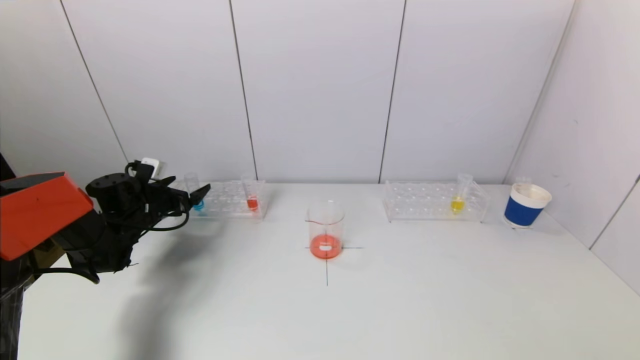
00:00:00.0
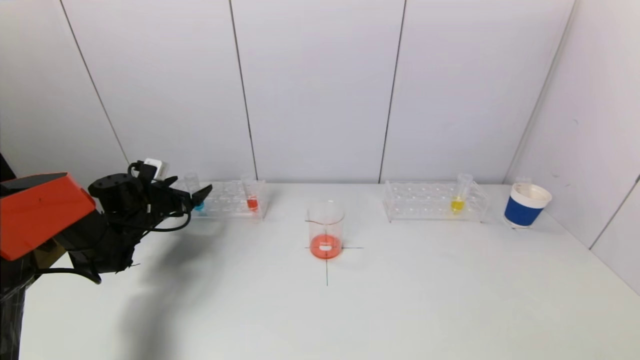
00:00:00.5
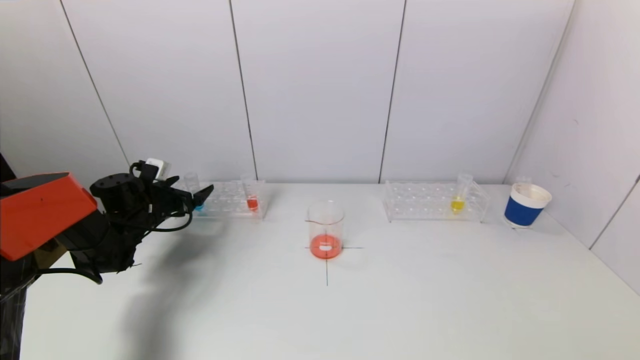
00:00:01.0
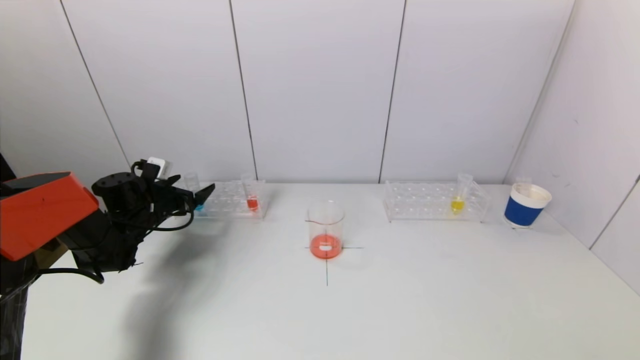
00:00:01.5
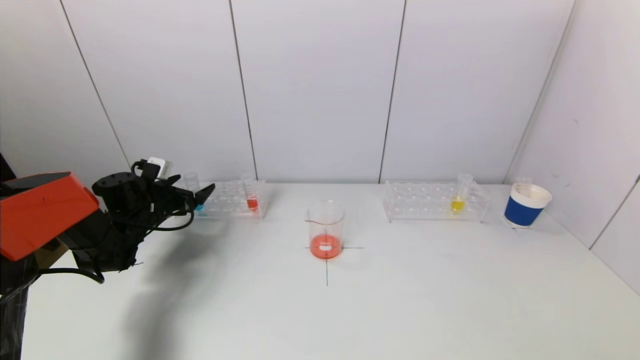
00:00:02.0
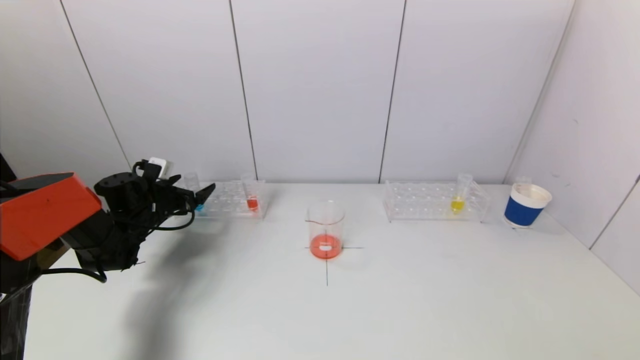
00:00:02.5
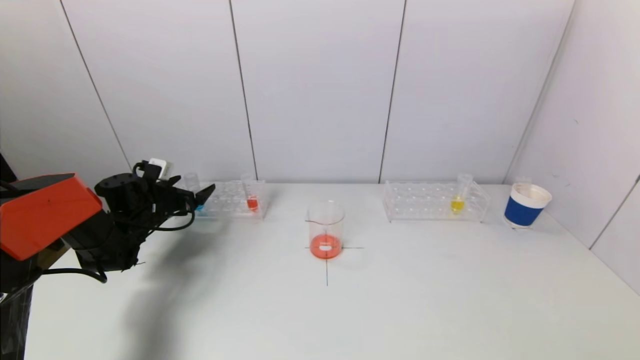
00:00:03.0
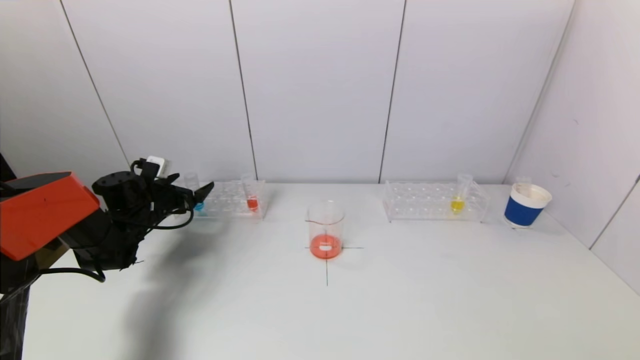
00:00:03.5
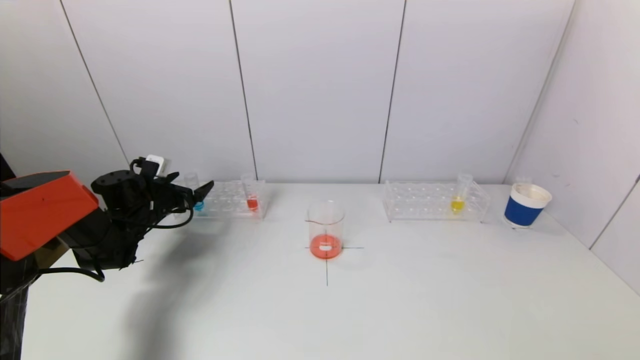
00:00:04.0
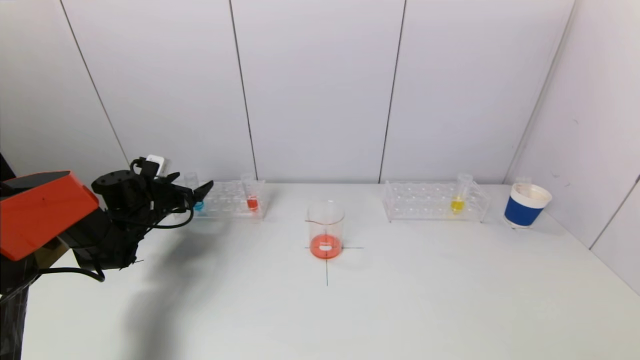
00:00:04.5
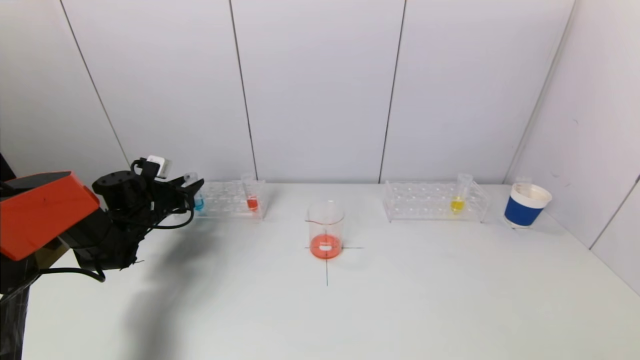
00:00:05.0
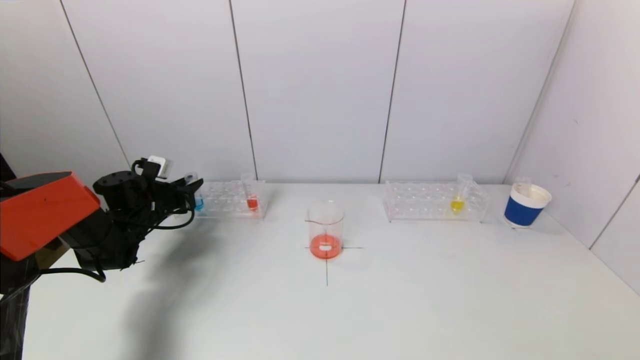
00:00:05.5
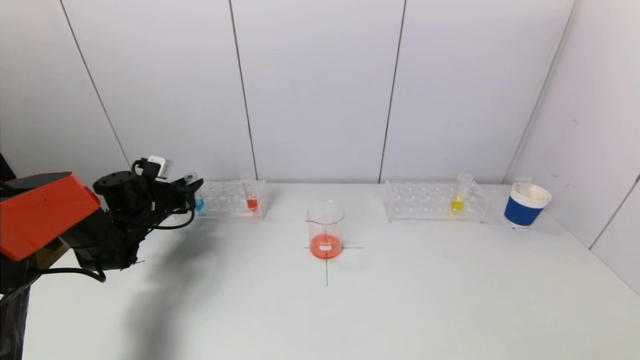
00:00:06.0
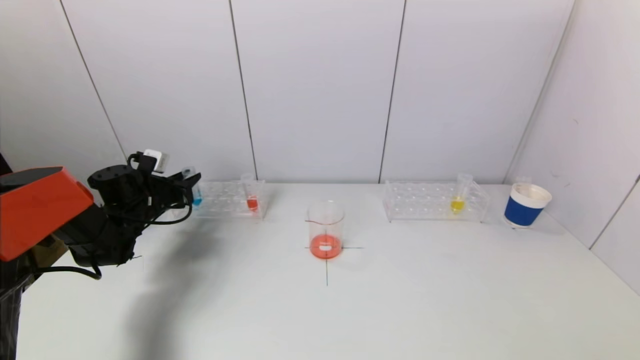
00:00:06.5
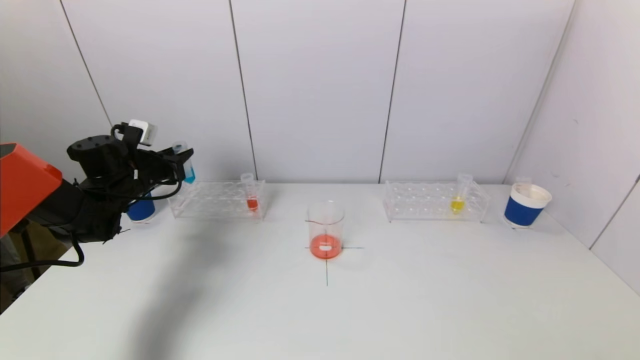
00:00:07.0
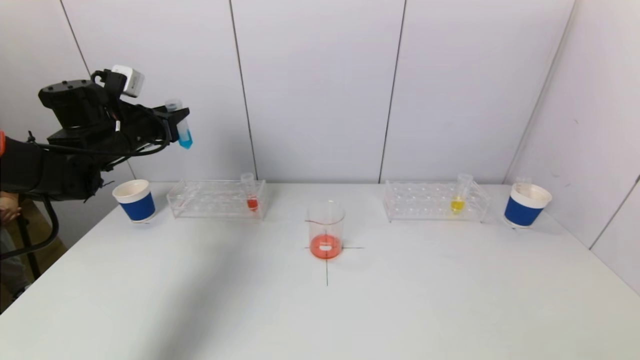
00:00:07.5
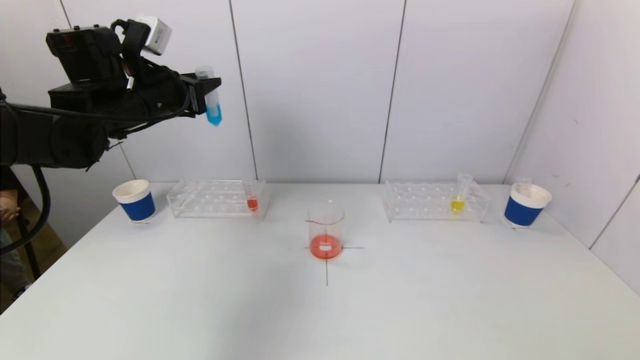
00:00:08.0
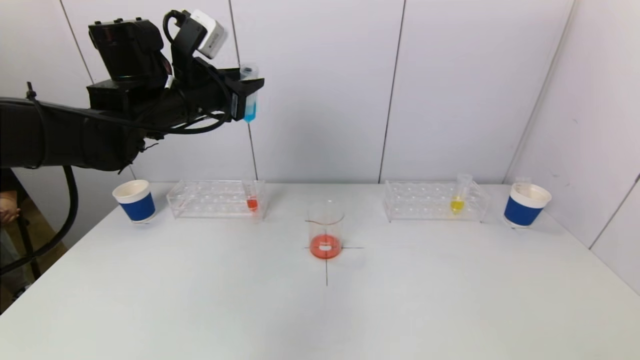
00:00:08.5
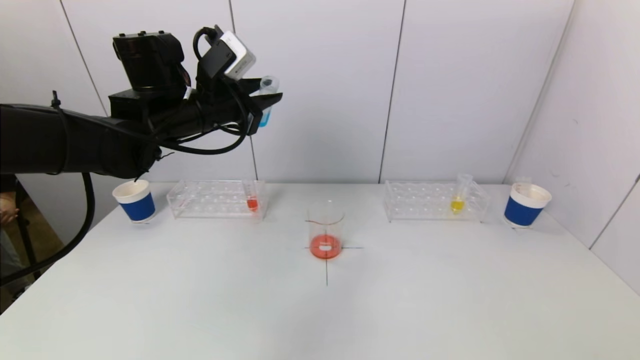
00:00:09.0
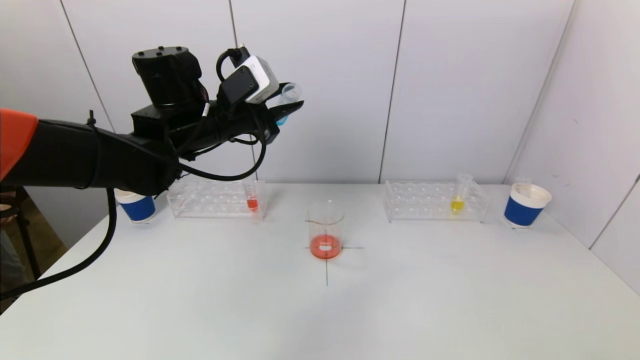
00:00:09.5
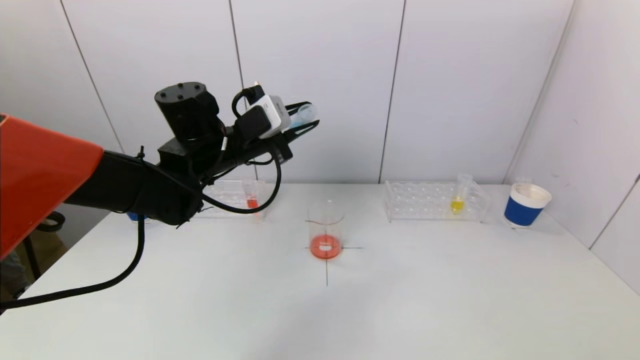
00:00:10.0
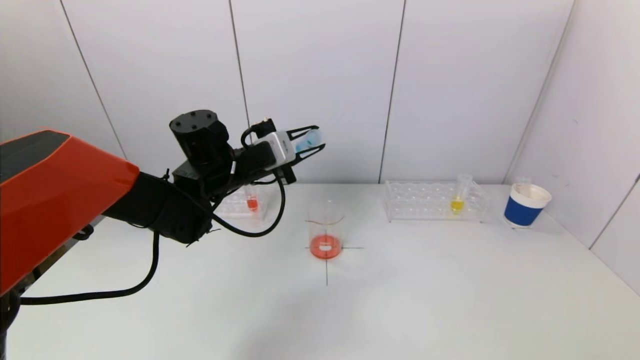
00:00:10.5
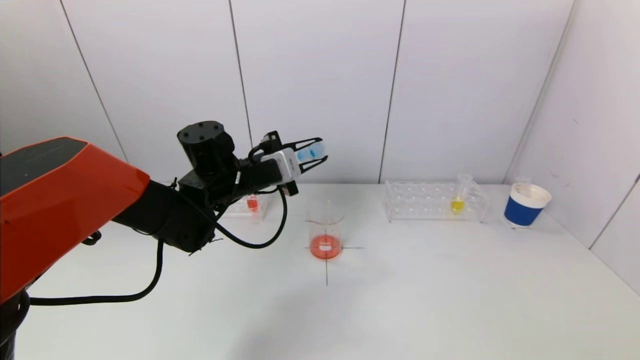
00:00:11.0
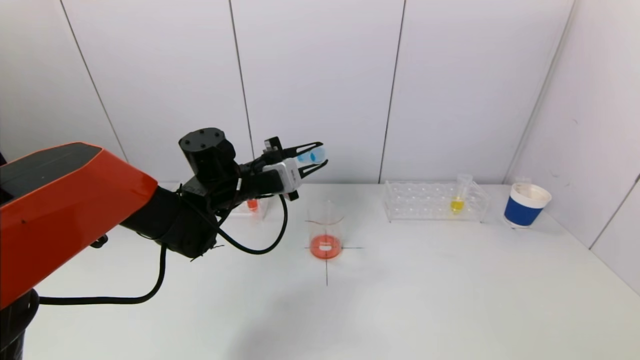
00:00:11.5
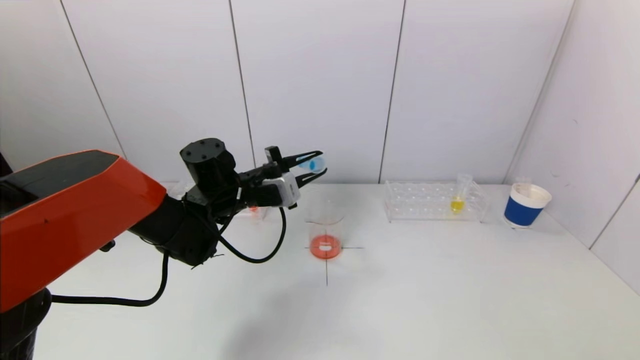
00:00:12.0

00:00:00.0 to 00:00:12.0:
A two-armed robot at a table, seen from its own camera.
Task of the whole recording: pick up a test tube with pigment on left test tube rack and a test tube with pigment on right test tube rack by grippers and pour them into the beaker.
Step, 00:00:00.0 to 00:00:05.0: Grasp the blue reagent with the left gripper.
00:00:00.0 to 00:00:04.0: Both grippers stay put.
00:00:04.0 to 00:00:06.0: The left gripper closes up.
00:00:06.0 to 00:00:08.0: The left gripper travels upward by about 25 cm.
00:00:08.0 to 00:00:10.0: The left gripper is displaced to the right and downward by approximately 15 cm.
00:00:10.0 to 00:00:12.0: The left gripper heads downward, covering approximately 10 cm.

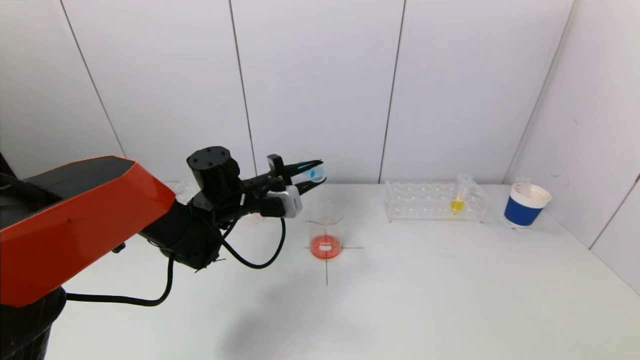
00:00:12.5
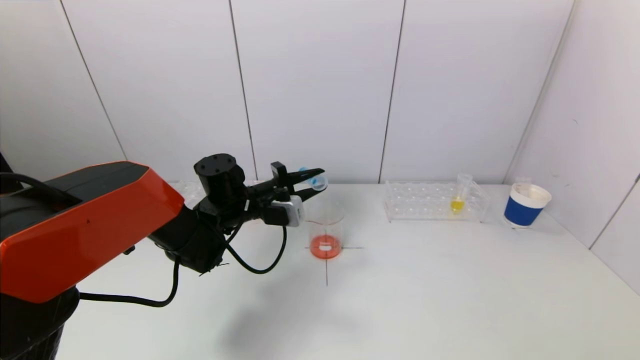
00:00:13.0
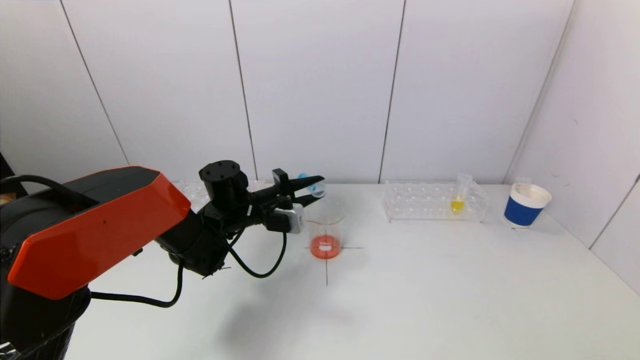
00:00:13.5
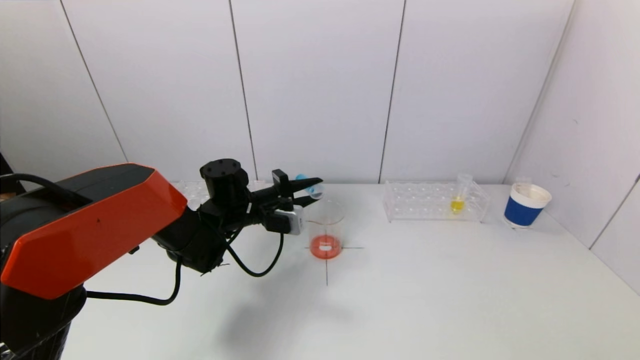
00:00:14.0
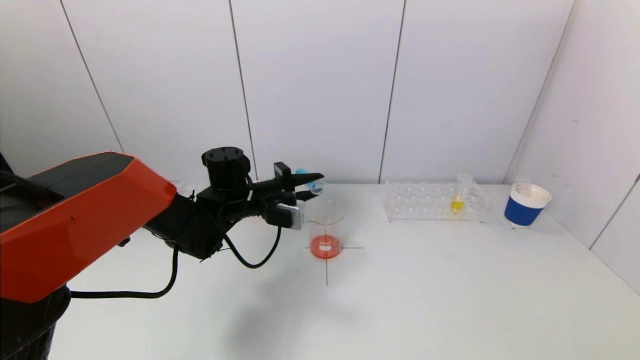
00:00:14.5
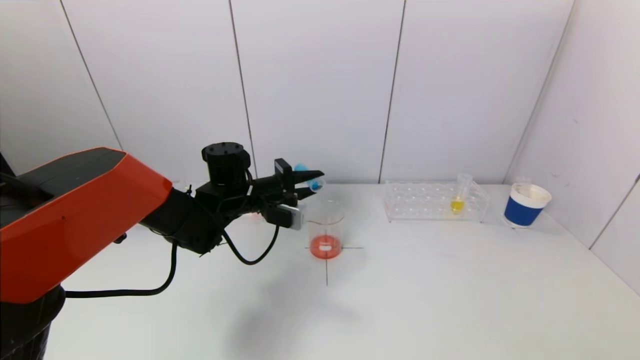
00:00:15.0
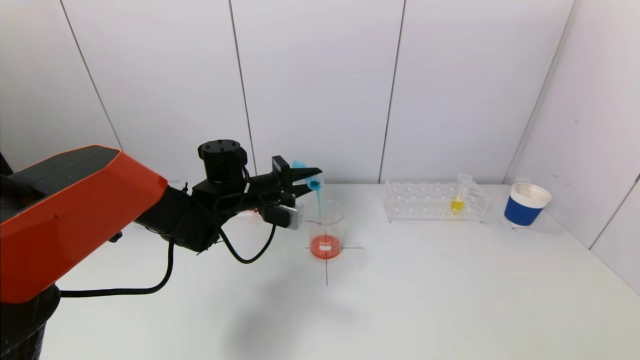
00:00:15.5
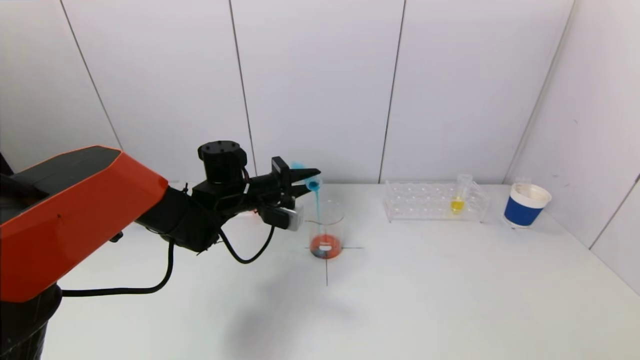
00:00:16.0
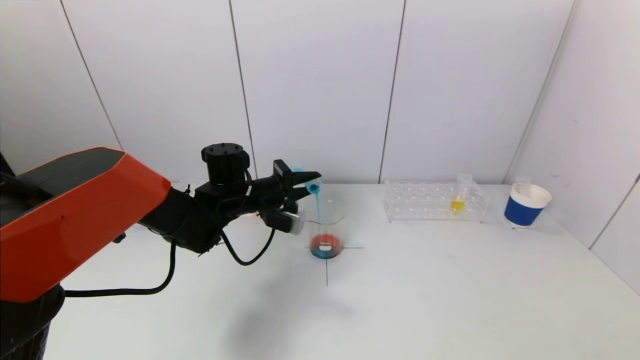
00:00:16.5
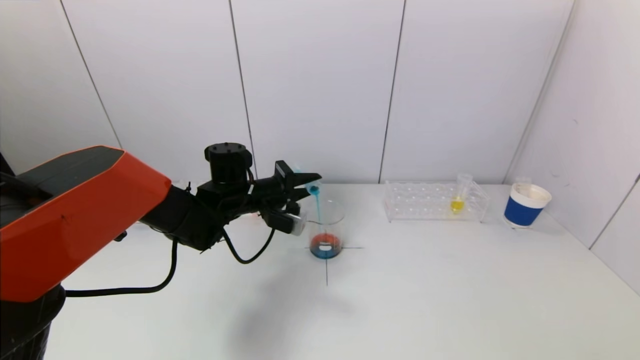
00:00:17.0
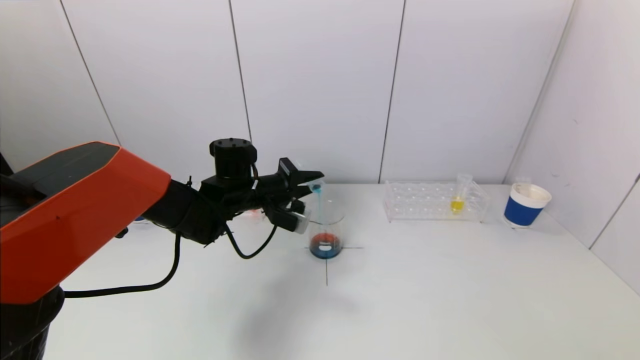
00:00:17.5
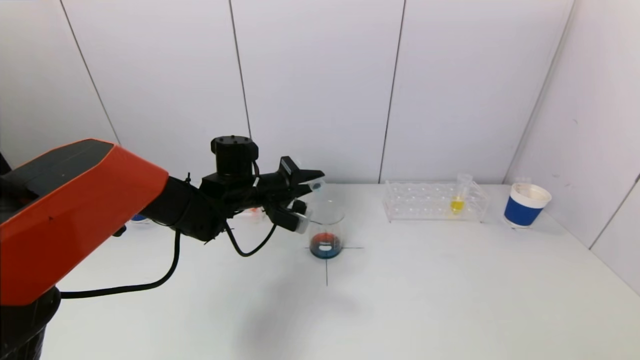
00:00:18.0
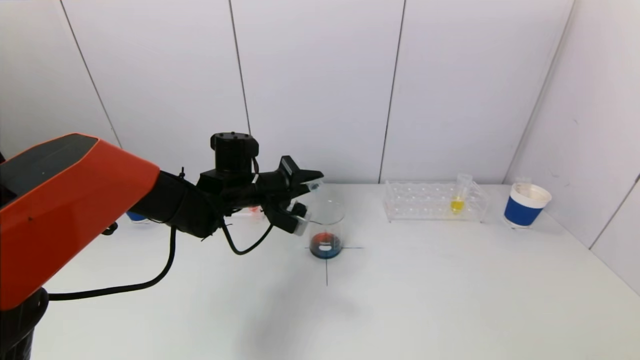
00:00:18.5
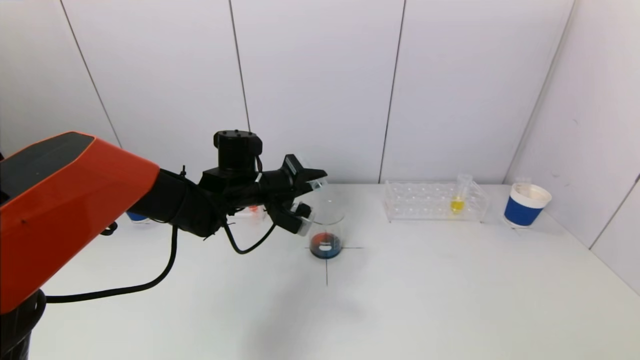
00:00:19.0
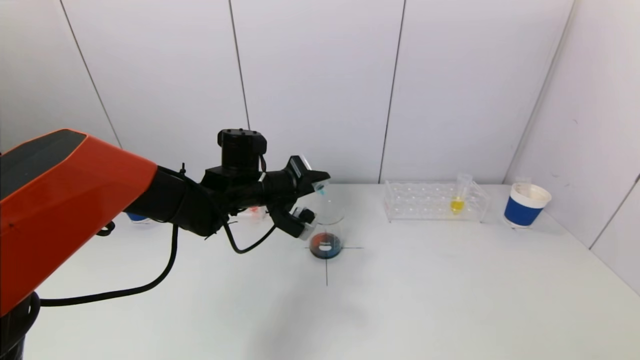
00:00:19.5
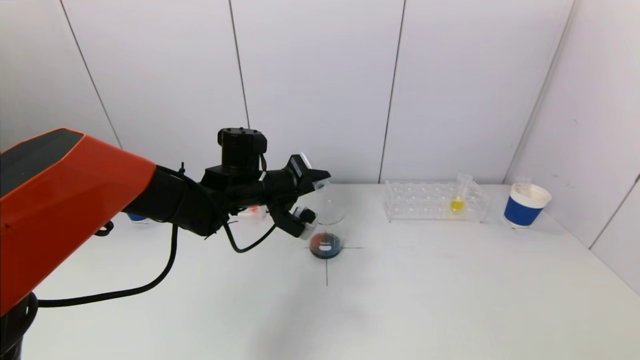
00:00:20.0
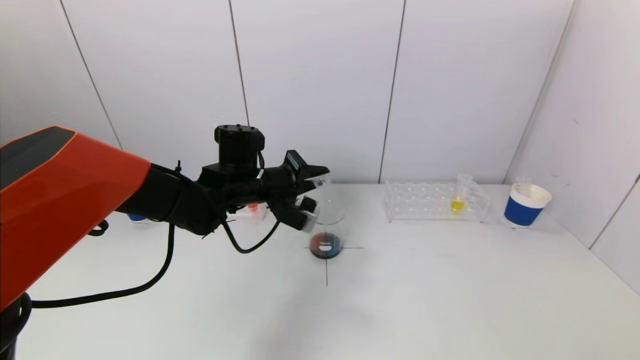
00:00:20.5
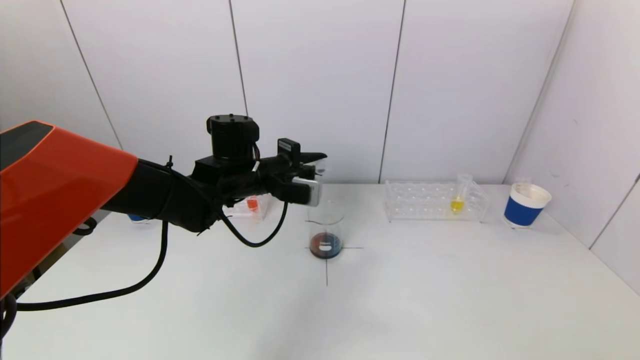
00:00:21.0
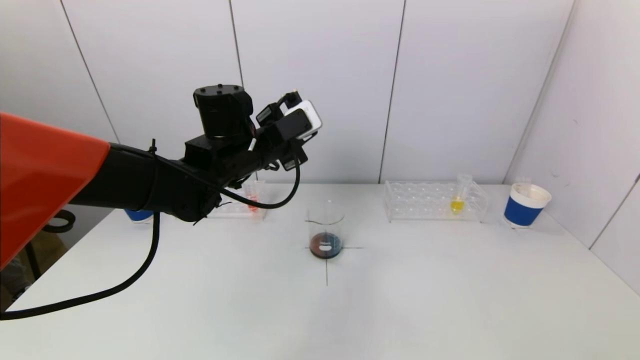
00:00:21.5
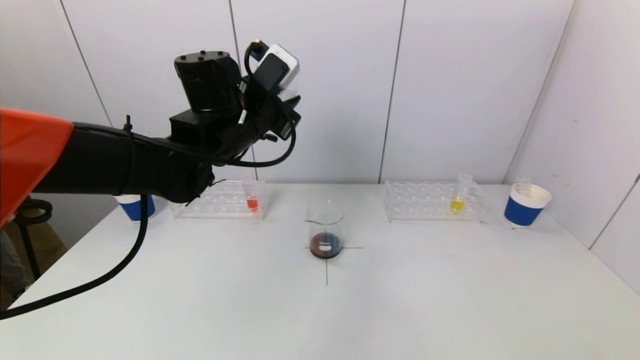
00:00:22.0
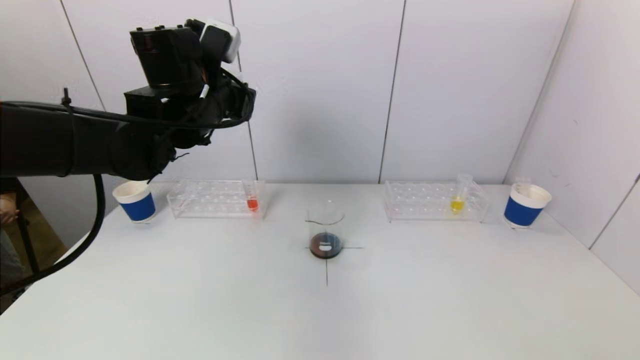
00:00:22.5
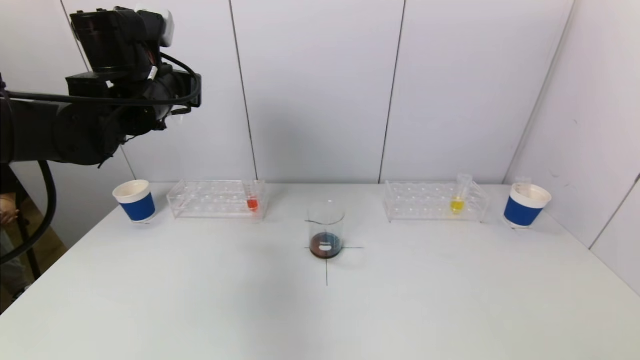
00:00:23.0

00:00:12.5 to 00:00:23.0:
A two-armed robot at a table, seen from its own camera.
Task of the whole recording: pick up a test tube with pigment on left test tube rack and a test tube with pigment on right test tube rack by grippers and pour them into the beaker.
Step, 00:00:12.5 to 00:00:19.5: Pour the blue reagent into the graduated cylinder with the left gripper.
00:00:12.5 to 00:00:14.5: The grippers move only a little.
00:00:14.5 to 00:00:16.5: The grippers move only a little.
00:00:16.5 to 00:00:19.0: The grippers make only small movements.
00:00:21.0 to 00:00:23.0: The left gripper is displaced upward and to the left by roughly 15 cm.
